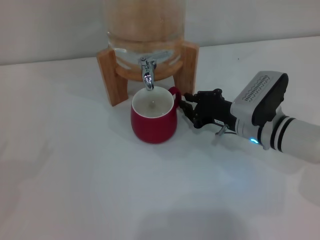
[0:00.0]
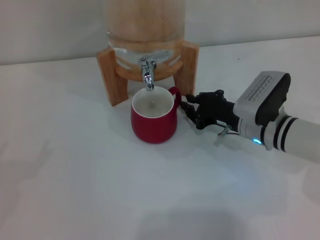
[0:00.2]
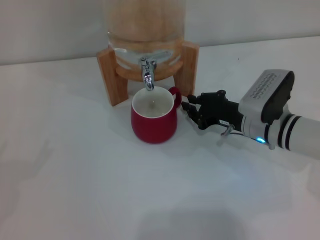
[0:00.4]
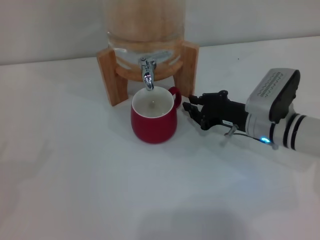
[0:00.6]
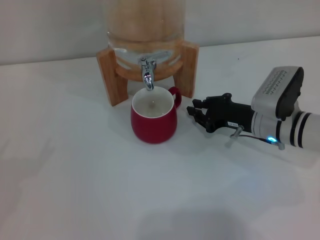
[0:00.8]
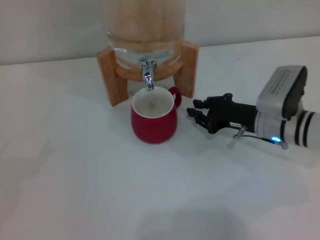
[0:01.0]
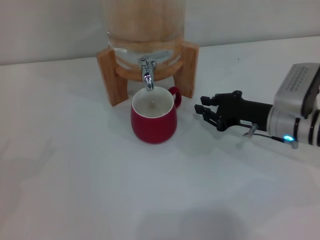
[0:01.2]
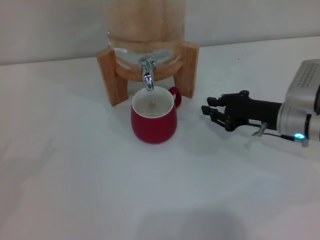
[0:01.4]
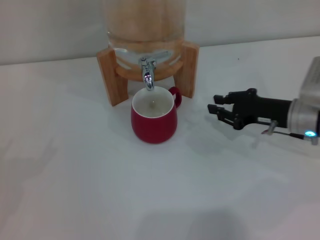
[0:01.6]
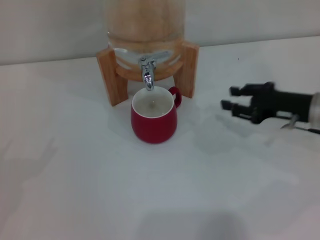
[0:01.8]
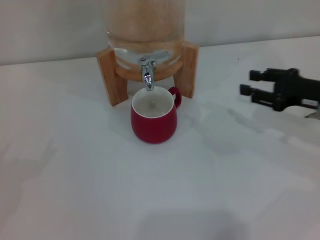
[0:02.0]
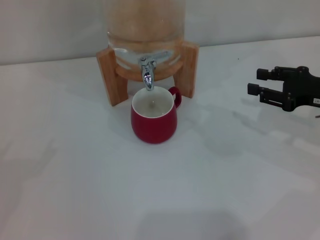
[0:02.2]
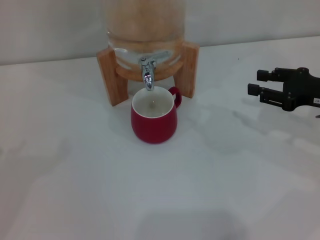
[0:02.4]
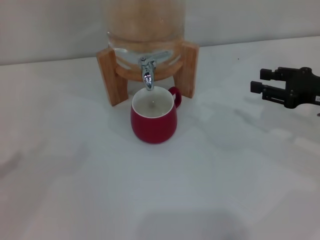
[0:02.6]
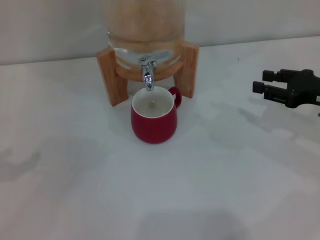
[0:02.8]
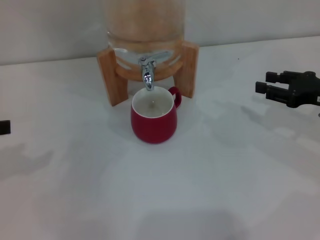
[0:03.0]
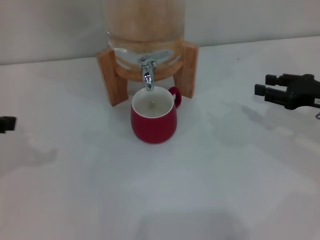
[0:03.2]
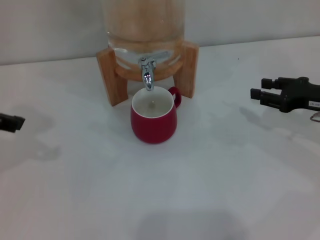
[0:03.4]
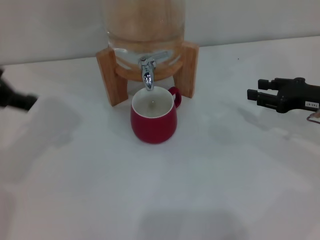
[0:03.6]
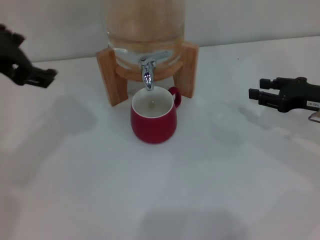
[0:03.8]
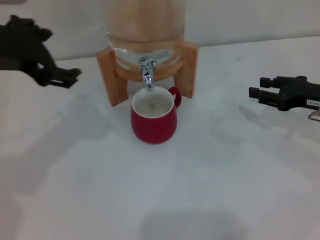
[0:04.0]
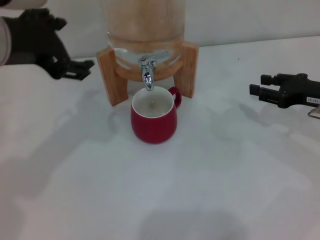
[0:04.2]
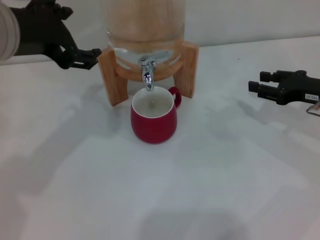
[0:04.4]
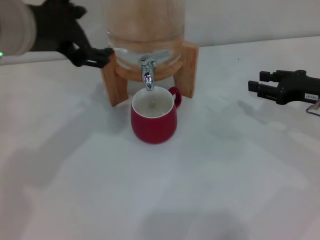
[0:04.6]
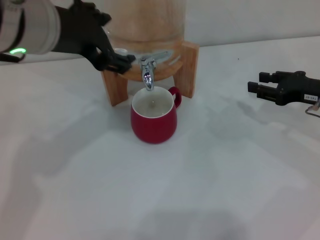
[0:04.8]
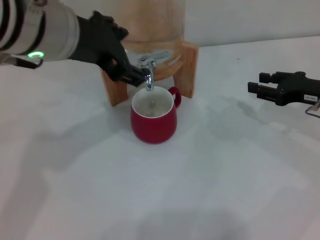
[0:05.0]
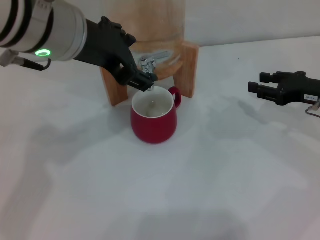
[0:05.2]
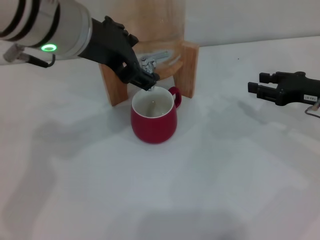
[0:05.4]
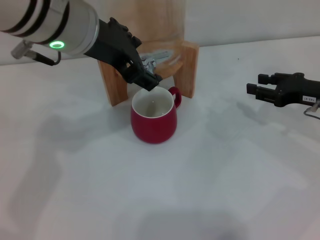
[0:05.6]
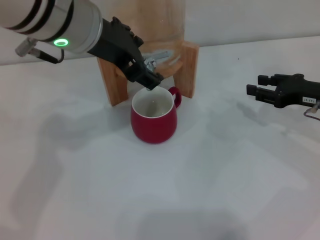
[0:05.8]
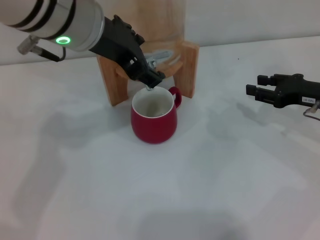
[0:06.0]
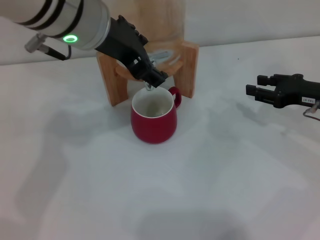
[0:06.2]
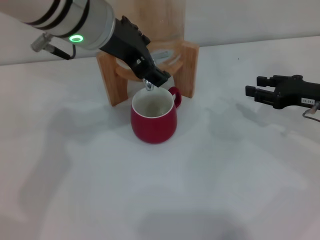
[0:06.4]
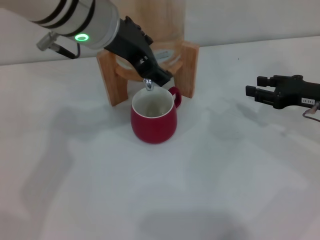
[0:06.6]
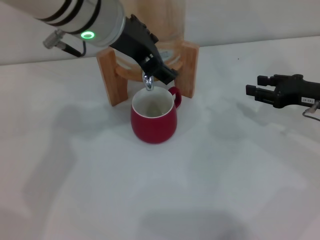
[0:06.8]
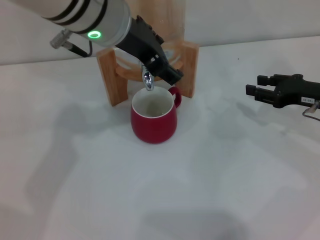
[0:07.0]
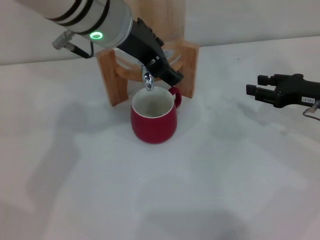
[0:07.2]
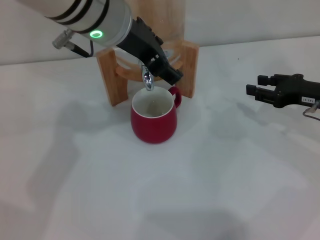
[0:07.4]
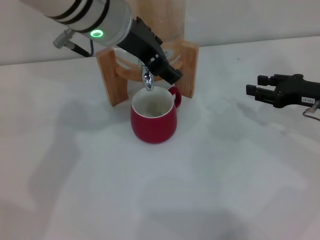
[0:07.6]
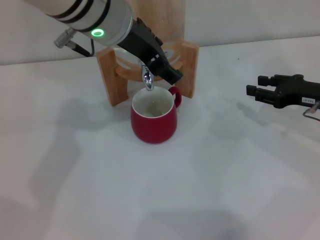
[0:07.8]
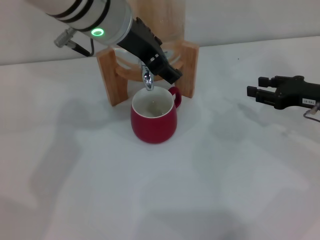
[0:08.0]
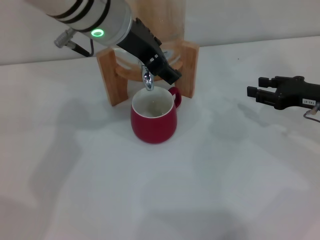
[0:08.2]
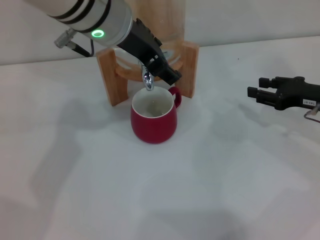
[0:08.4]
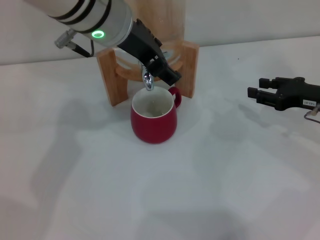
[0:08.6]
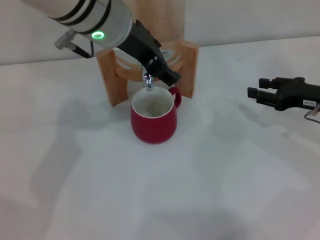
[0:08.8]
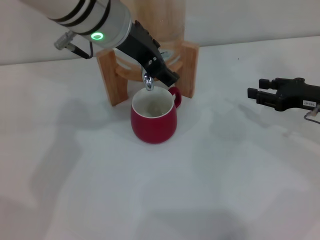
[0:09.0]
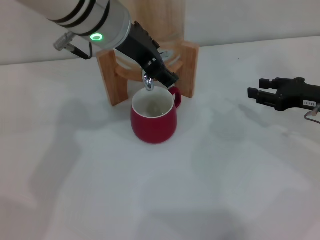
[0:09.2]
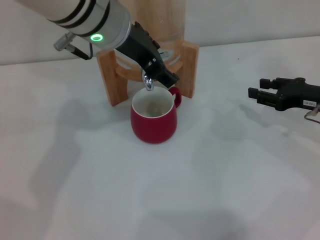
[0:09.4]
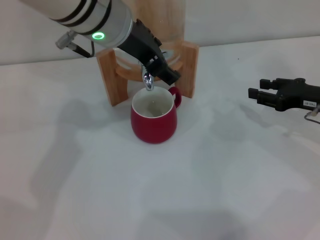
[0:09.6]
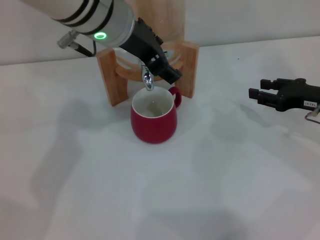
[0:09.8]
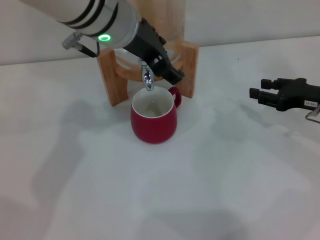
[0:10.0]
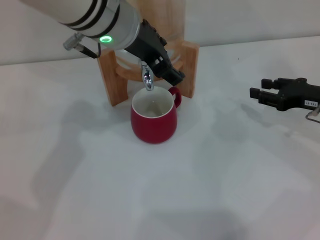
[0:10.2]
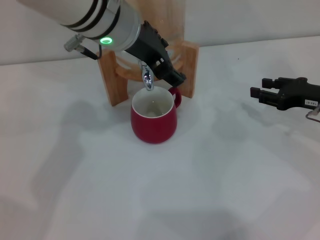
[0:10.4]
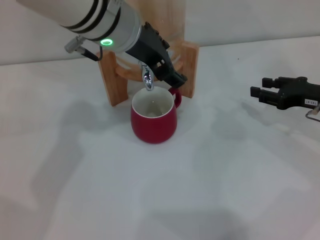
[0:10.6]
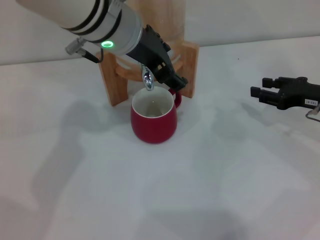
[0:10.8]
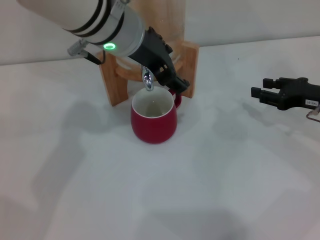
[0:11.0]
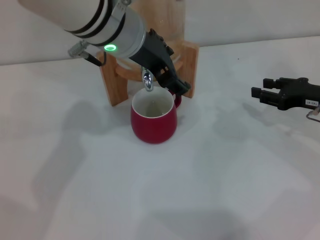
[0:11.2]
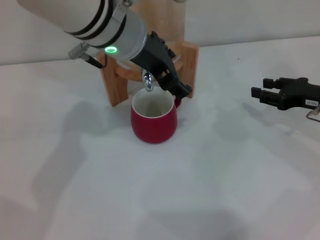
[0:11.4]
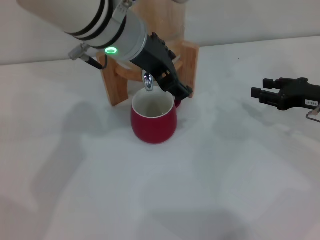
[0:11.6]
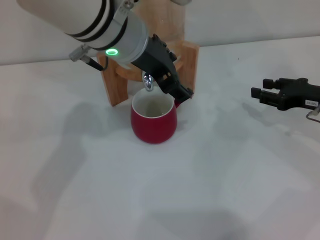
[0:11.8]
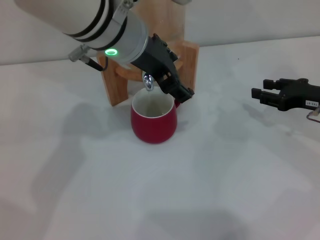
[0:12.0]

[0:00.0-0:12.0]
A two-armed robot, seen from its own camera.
Task of the whole recording: the right gripper pick up the red cup and place it horizontally under the faucet, the left gripper turn on the faucet to fill the cup, and then turn off the faucet.
0:00.0 to 0:01.6: The right gripper travels to the right by roughly 10 cm.
0:01.6 to 0:03.0: The right gripper travels to the right by some 5 cm.
0:03.0 to 0:04.4: The left gripper moves to the right, some 15 cm.
0:04.4 to 0:06.0: The left gripper heads to the right, covering about 10 cm.
0:06.0 to 0:07.6: There are only small adjustments of the grippers.
0:07.6 to 0:09.0: Both grippers stay about where they are.
0:09.0 to 0:10.4: The two grippers keep their place.
0:10.4 to 0:12.0: The grippers move only a little.

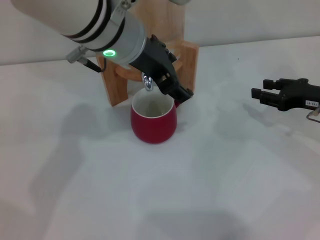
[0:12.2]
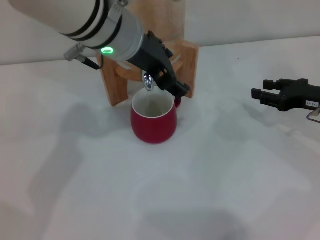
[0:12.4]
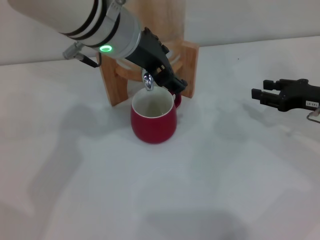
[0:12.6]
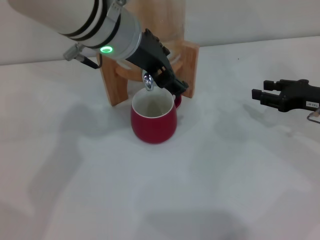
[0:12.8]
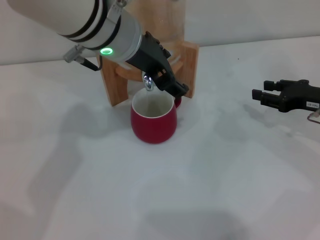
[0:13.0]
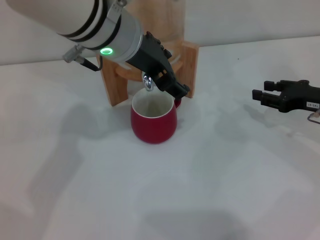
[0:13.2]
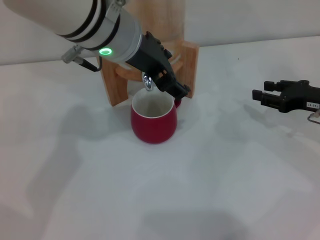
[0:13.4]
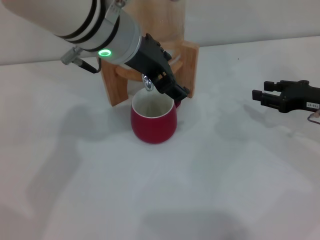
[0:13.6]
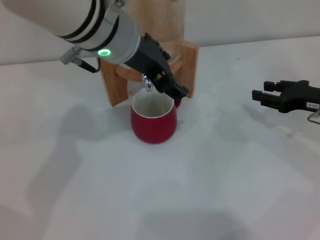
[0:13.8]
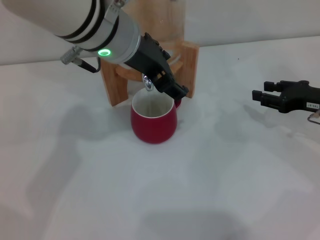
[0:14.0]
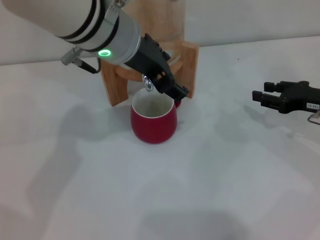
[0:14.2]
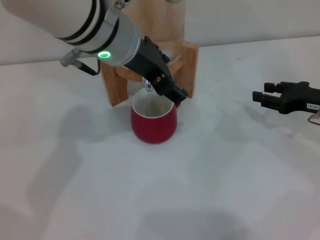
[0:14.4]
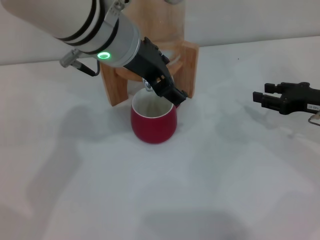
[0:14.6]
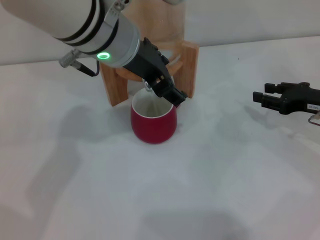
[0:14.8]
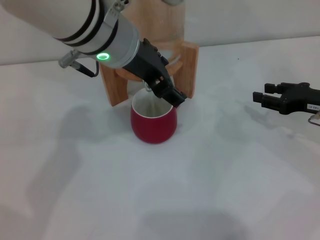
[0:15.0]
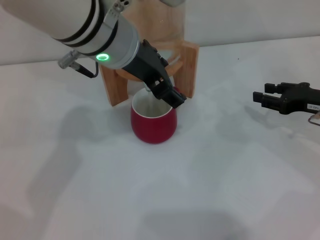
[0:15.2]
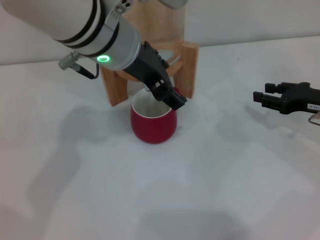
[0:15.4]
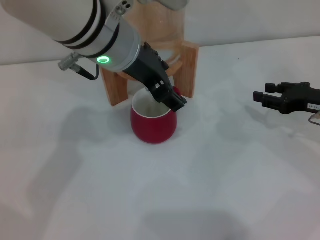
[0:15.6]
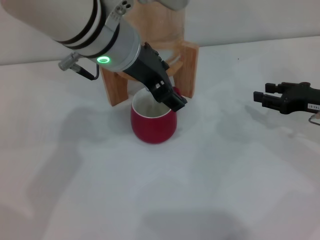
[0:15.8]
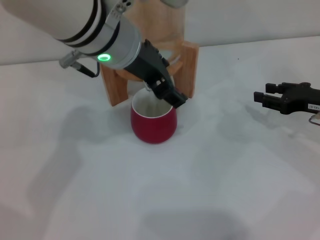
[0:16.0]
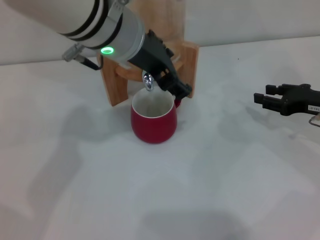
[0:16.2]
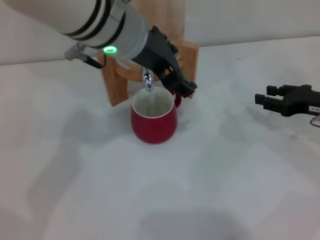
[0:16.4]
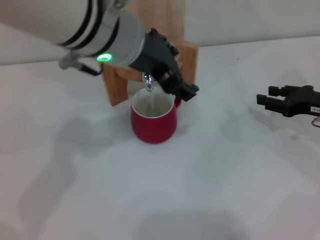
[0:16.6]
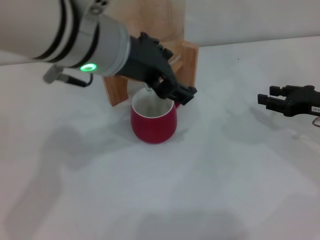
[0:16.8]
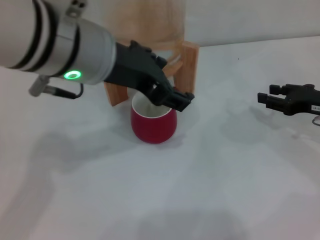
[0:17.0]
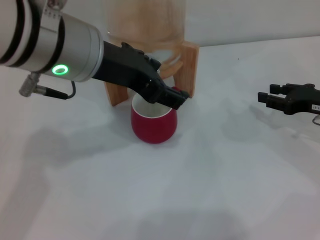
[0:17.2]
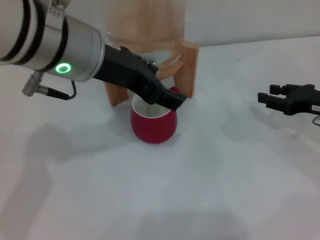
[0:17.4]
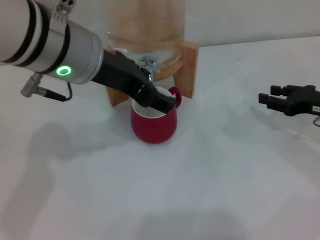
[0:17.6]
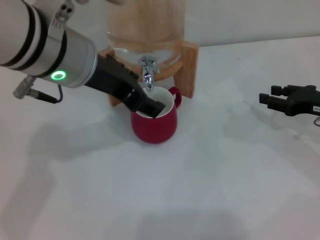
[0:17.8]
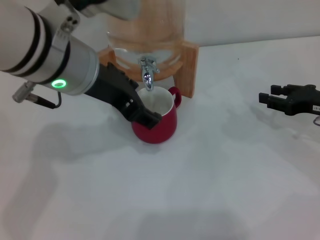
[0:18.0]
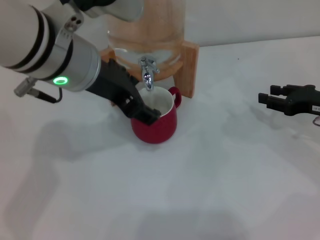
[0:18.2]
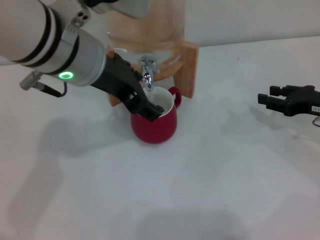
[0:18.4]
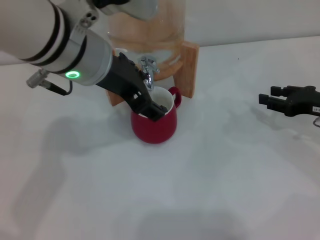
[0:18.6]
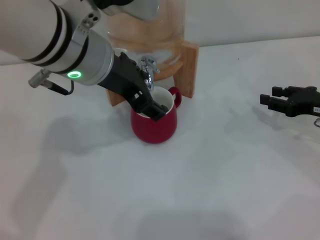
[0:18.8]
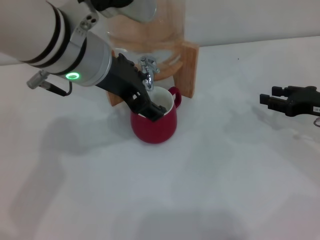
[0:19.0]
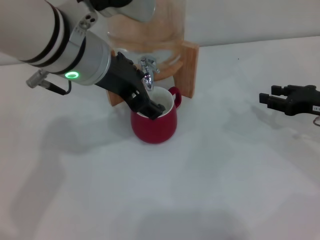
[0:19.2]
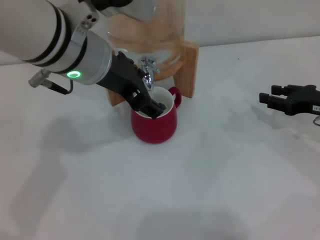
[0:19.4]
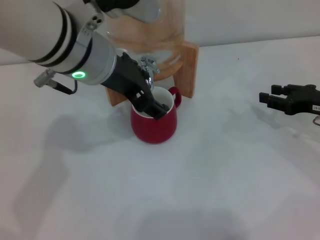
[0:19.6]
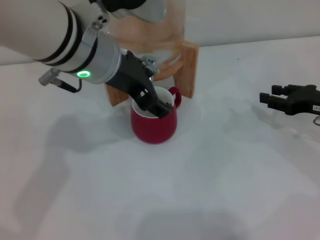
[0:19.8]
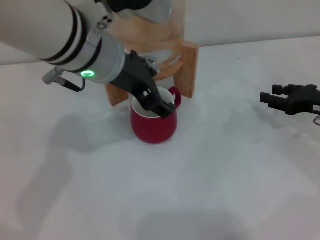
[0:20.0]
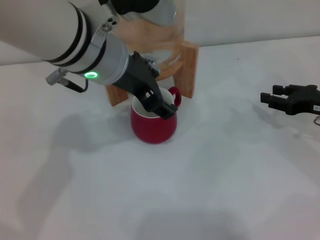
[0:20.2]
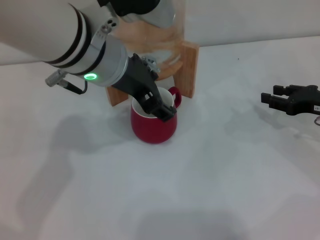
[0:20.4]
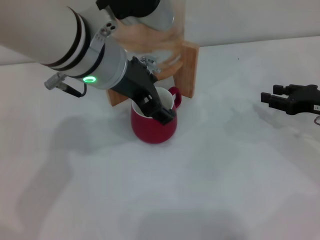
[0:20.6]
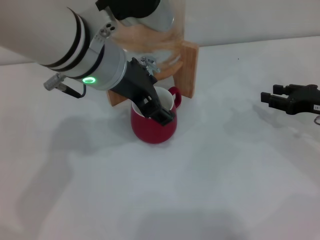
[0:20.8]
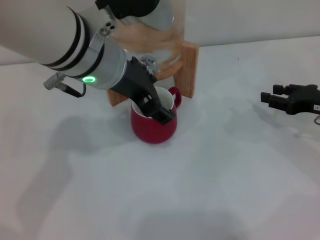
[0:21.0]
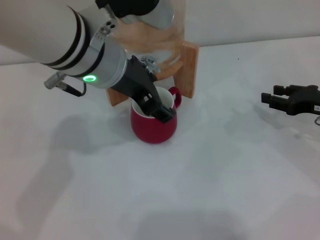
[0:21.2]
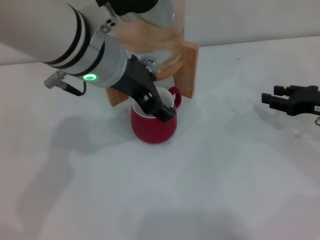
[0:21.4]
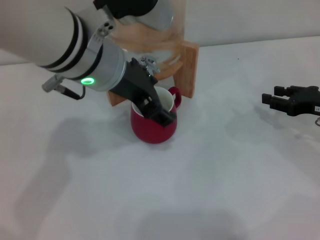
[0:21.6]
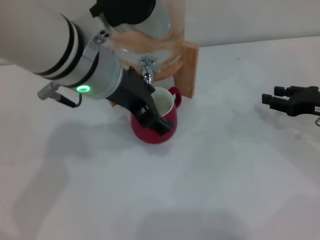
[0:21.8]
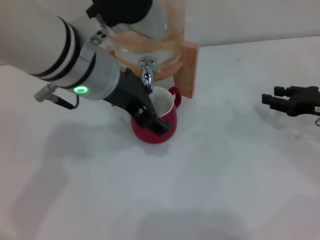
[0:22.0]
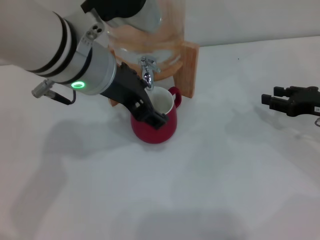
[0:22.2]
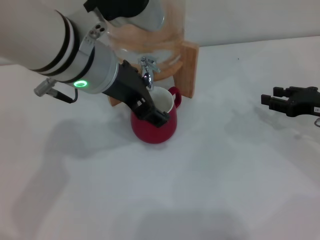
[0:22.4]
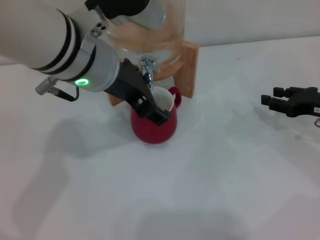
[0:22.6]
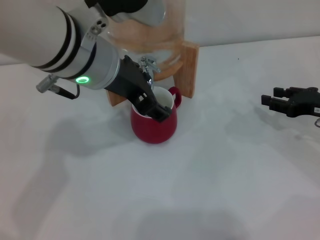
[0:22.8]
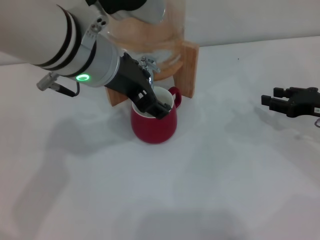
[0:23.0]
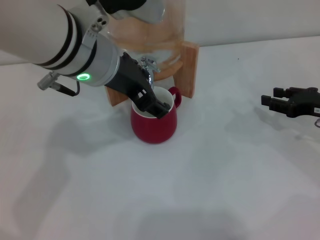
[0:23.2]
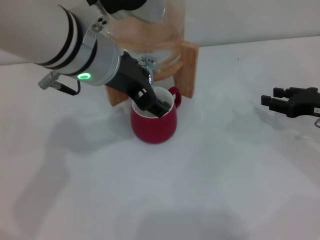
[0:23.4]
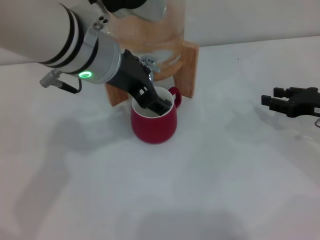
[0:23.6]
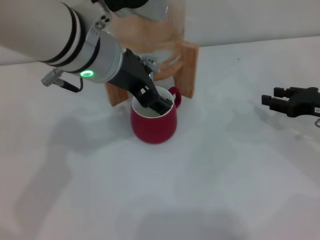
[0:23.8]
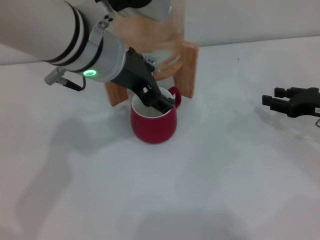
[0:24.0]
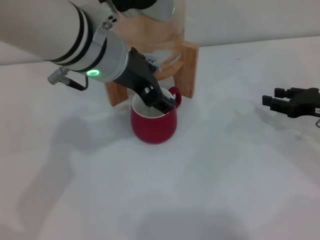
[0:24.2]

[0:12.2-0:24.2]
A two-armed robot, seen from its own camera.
Task of the whole recording: the right gripper pick up the red cup and place it horizontally under the faucet, the left gripper turn on the faucet to fill the cup, and then turn off the faucet.
Step, 0:12.2 to 0:16.0: Open the dispenser valve and fill the cup with water with the left gripper.
0:12.2 to 0:15.2: The two grippers keep their place.
0:15.2 to 0:16.6: The grippers stay close to where they were, moving slightly.
0:16.6 to 0:19.8: There are only small adjustments of the grippers.
0:19.8 to 0:21.2: The two grippers keep their place.
0:21.2 to 0:24.2: The grippers move only a little.
